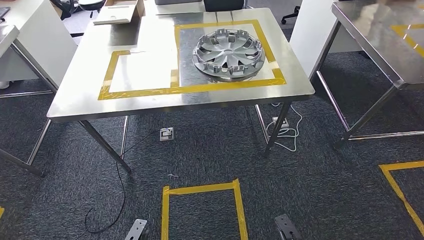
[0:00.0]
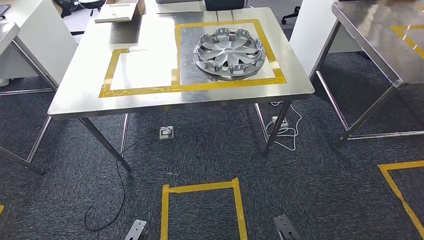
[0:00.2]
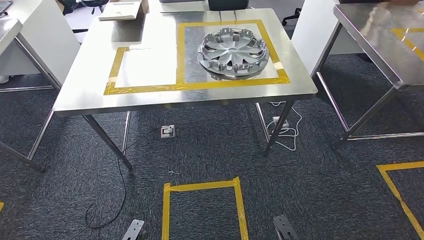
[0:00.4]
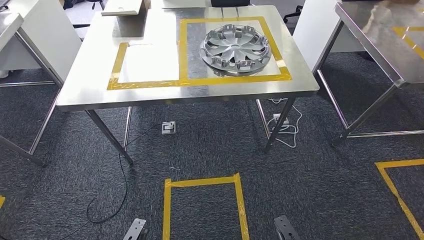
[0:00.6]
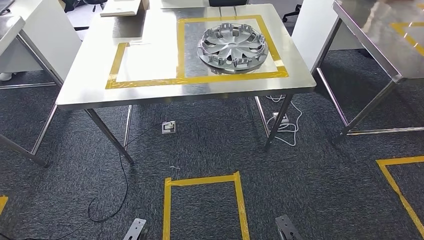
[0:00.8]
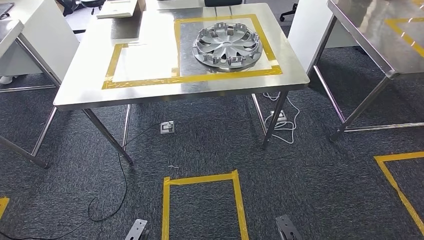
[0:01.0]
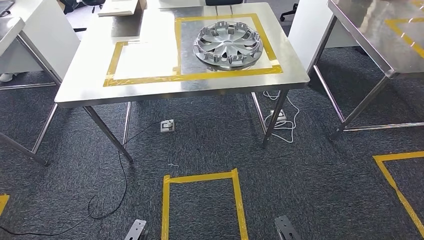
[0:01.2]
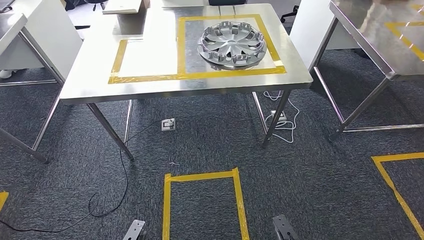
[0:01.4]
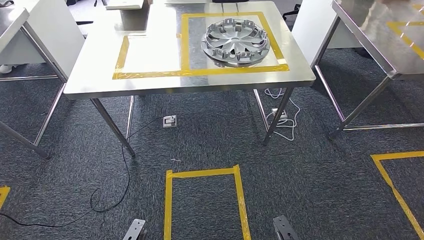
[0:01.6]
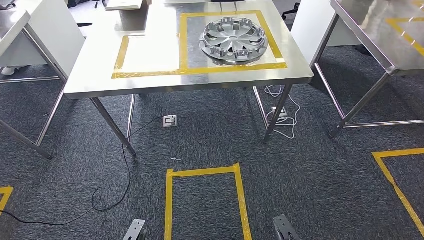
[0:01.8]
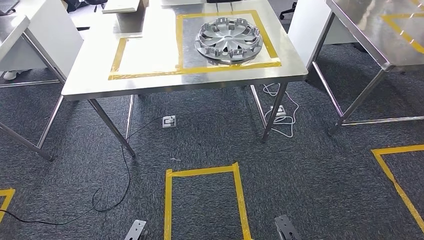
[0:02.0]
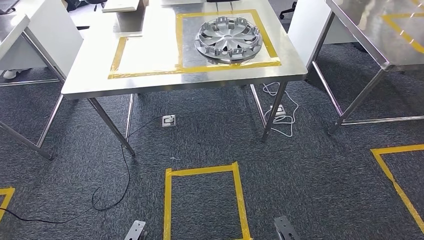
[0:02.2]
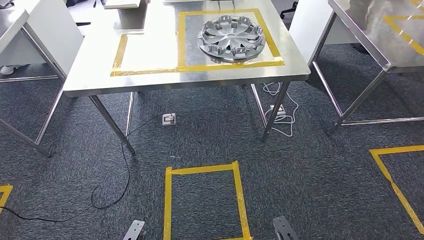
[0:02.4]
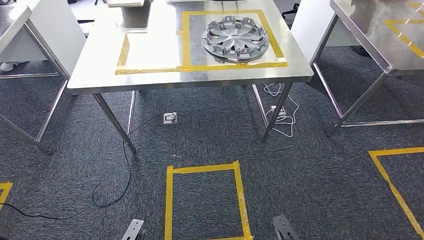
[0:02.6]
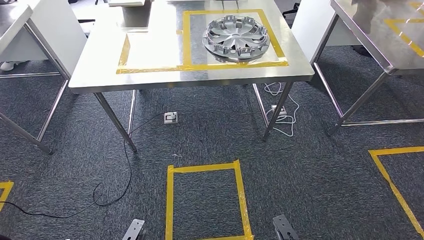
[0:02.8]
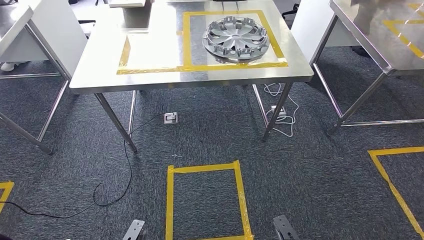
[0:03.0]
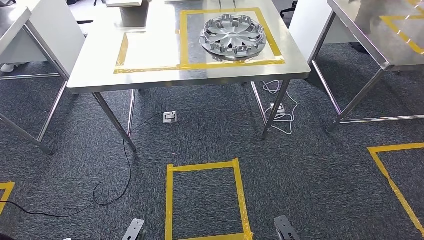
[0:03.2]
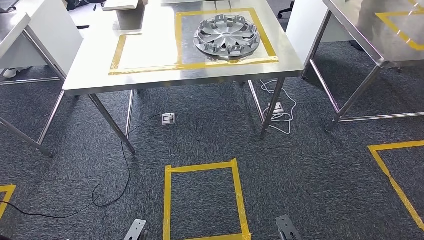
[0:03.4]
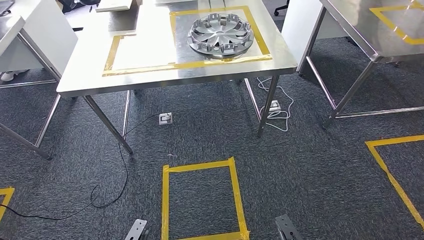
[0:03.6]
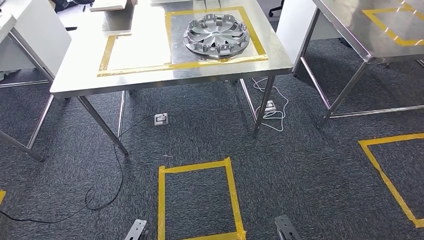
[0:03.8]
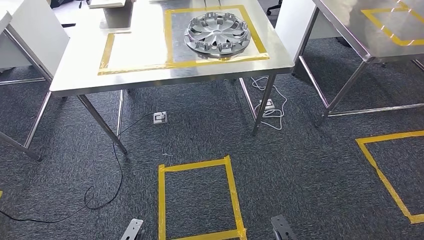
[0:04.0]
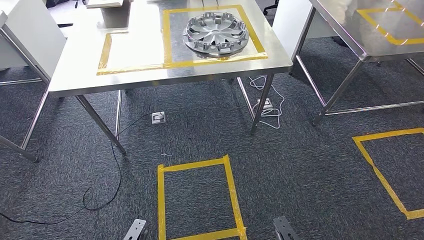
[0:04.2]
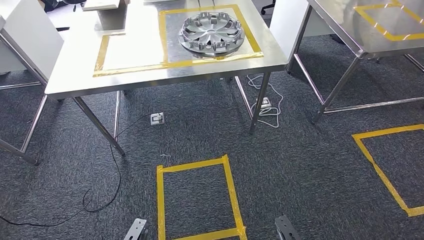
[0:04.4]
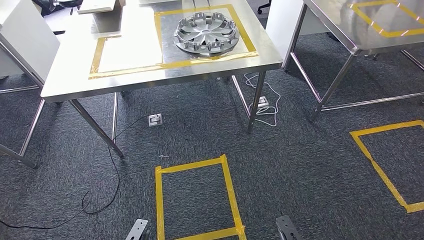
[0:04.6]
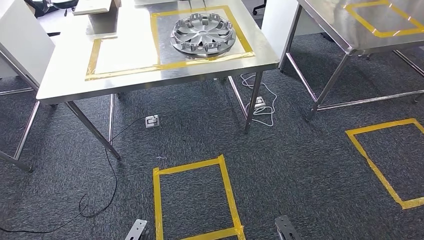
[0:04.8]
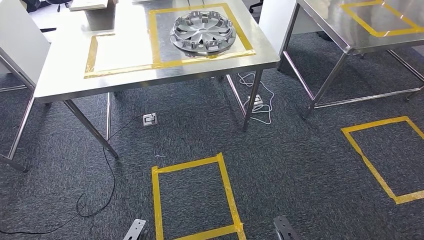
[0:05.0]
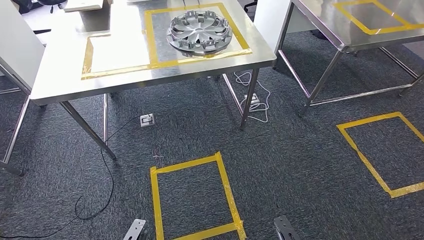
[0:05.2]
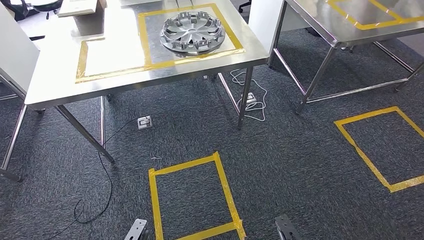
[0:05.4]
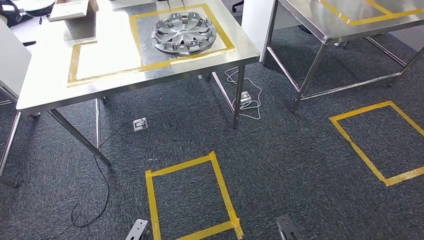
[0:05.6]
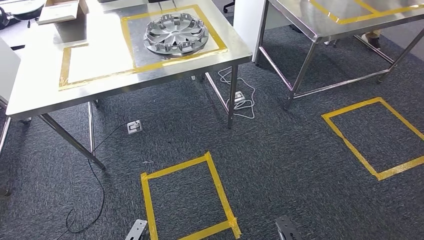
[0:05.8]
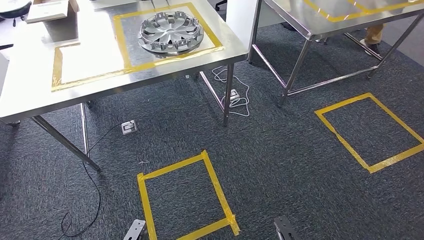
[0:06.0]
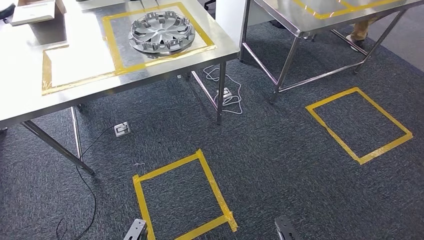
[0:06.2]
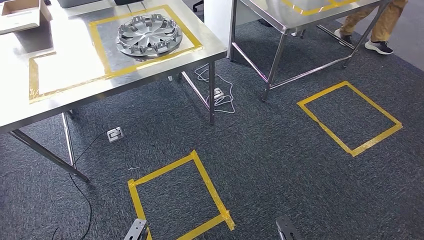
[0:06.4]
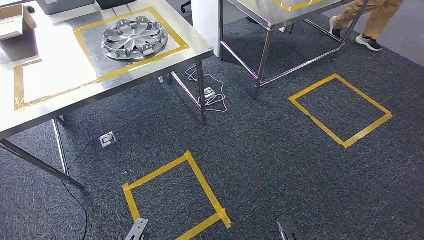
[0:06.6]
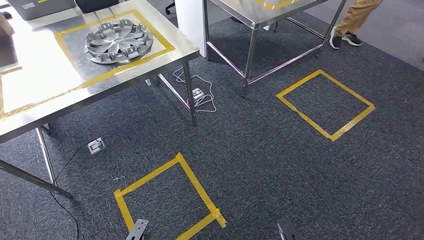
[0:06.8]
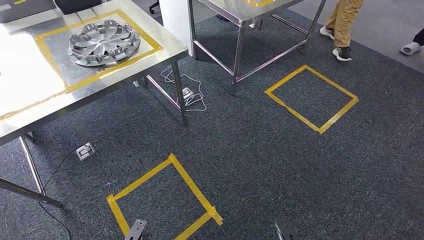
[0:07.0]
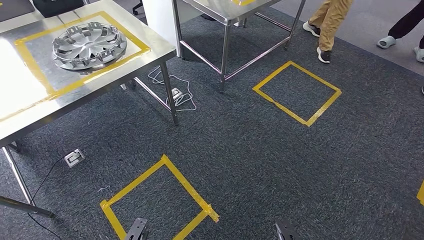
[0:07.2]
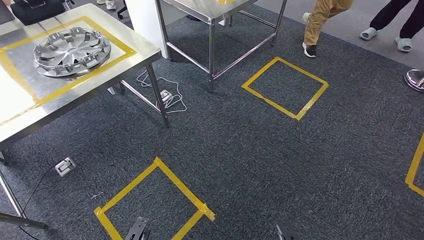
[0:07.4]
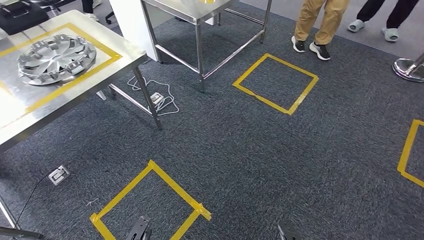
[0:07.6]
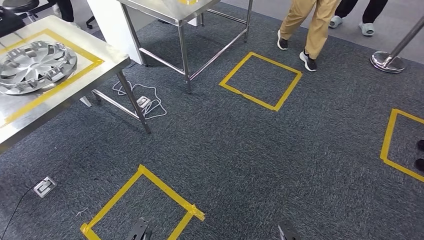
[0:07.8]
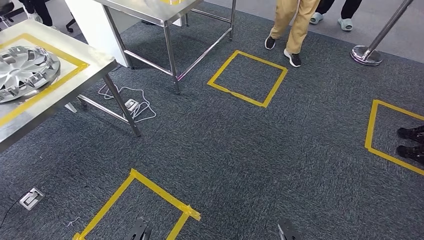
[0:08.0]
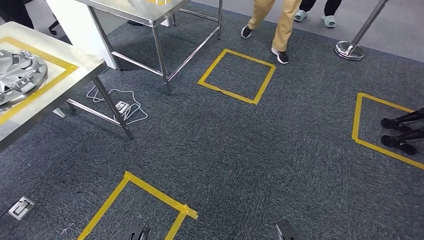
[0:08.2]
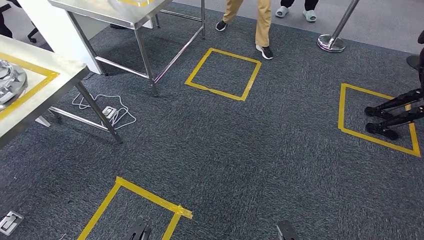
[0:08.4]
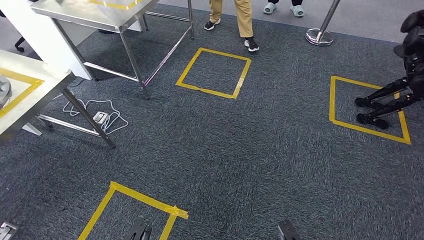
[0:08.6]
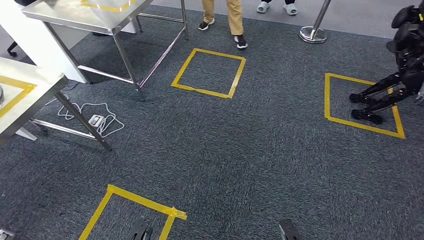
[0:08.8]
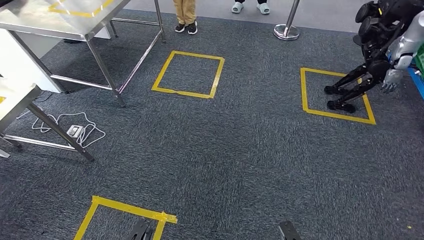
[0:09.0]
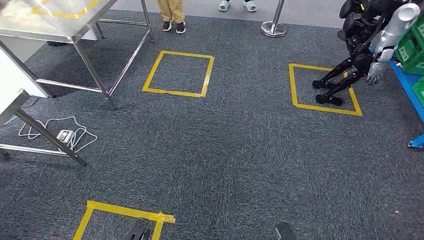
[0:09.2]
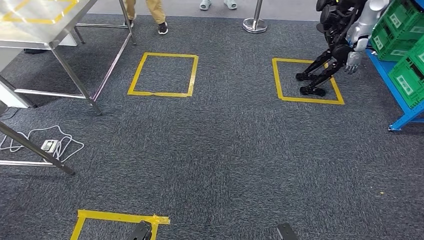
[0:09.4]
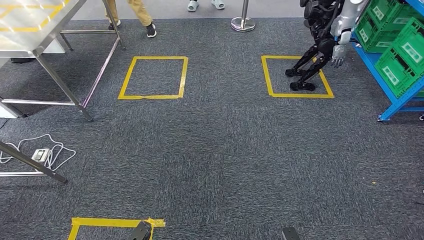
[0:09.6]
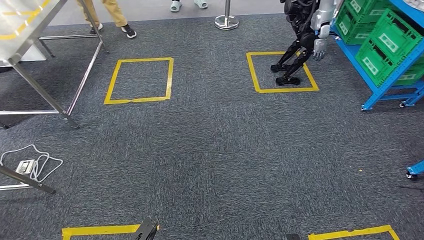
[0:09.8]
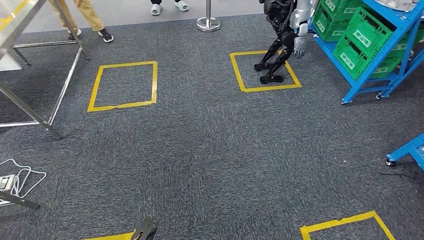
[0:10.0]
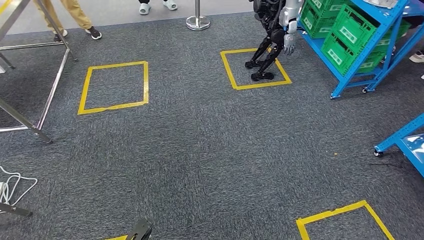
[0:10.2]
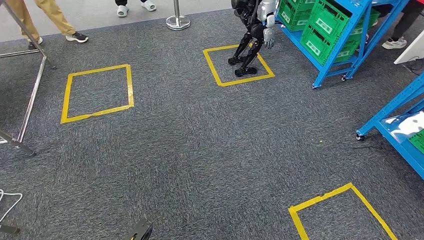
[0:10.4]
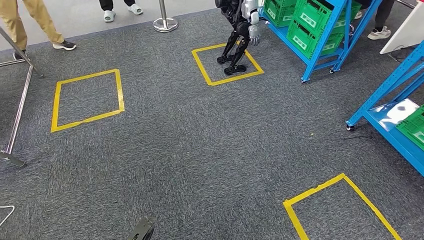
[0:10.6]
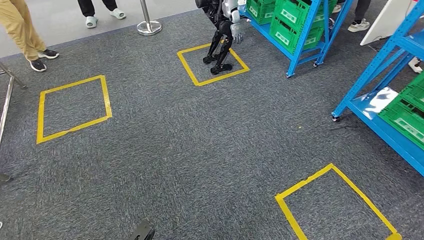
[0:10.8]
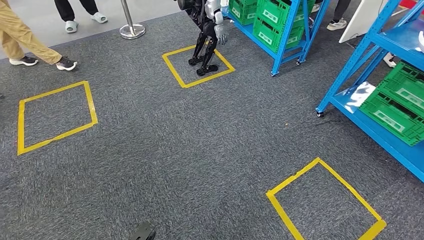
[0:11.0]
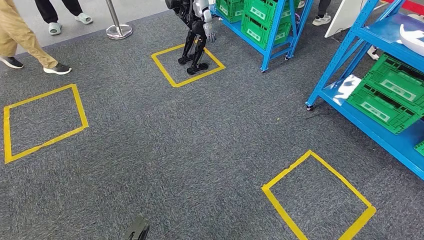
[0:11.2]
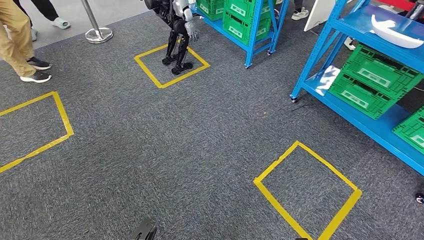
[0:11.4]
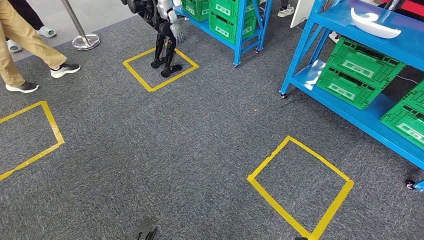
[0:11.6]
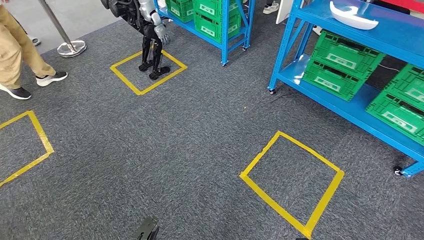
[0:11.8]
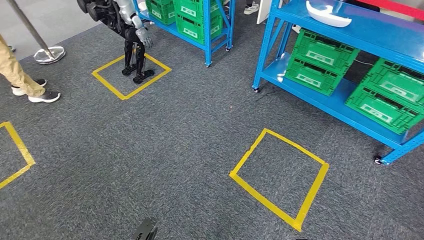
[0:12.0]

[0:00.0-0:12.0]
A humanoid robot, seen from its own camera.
0:01.6 to 0:03.0: Both hands stay put.

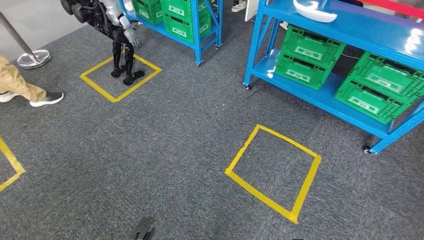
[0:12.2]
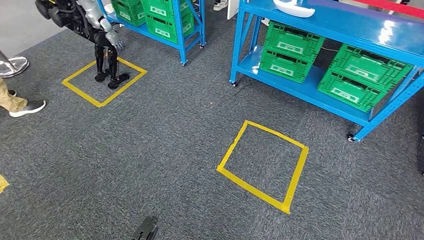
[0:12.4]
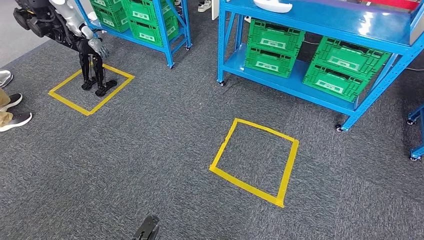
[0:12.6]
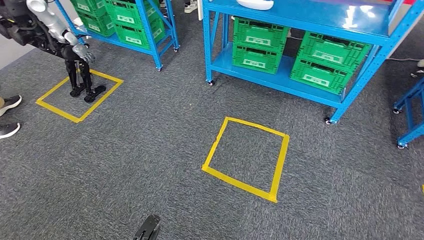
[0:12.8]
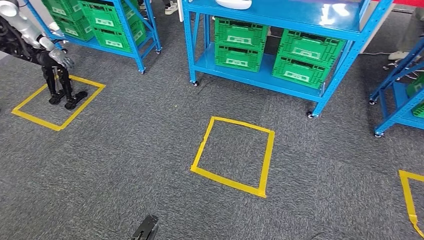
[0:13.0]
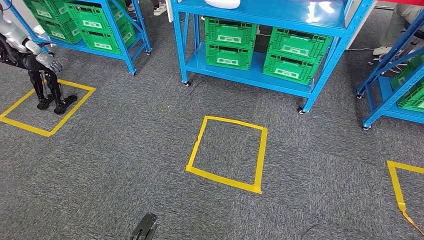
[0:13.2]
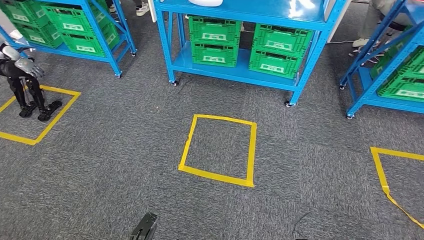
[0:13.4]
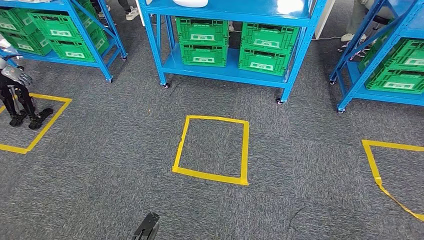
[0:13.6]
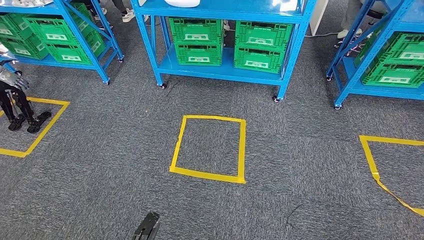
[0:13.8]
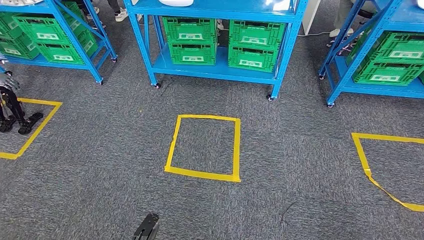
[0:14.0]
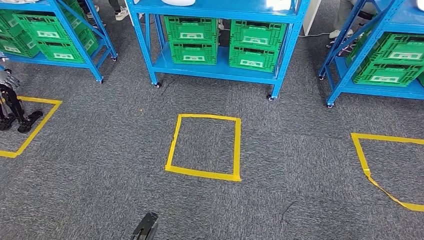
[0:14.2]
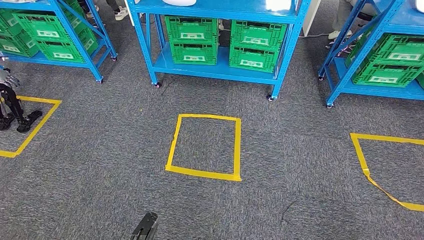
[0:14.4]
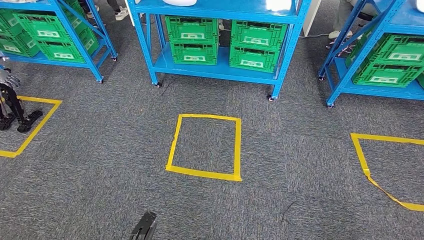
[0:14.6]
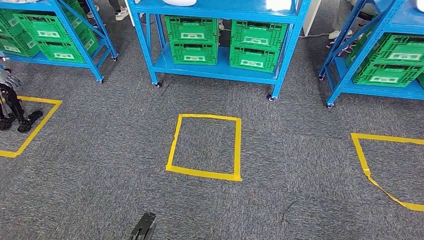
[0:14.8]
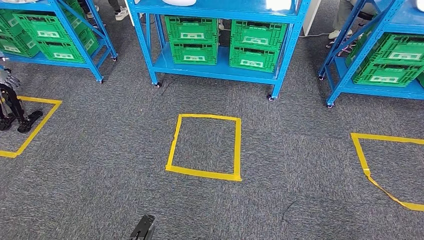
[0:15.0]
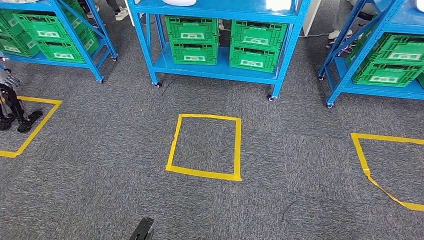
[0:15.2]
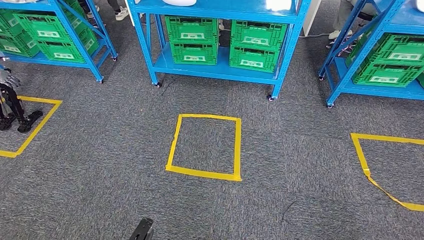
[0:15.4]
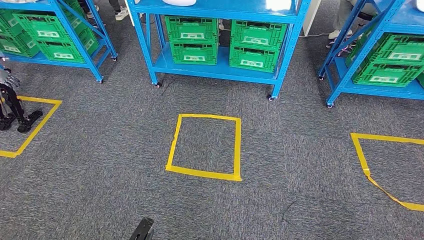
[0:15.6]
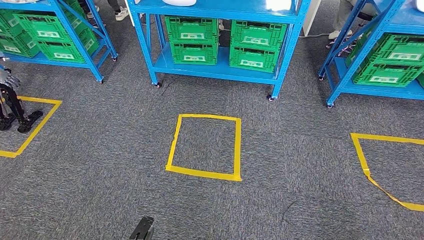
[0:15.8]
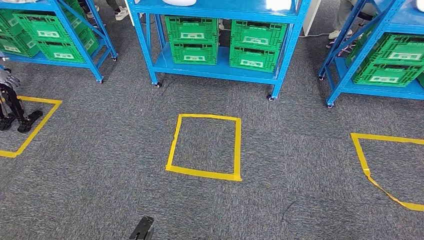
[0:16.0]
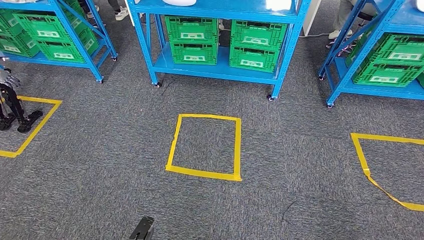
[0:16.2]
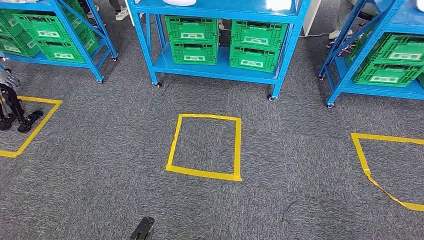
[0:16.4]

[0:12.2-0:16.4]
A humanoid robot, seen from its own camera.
Step, 0:12.2 to 0:16.2: Return to the initial position at the workbench.

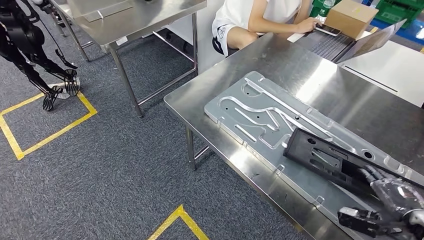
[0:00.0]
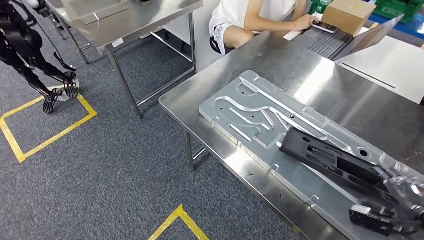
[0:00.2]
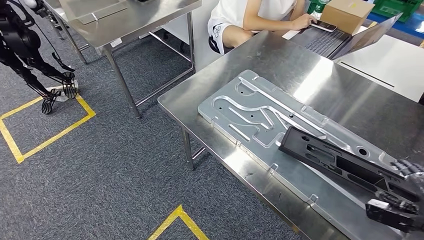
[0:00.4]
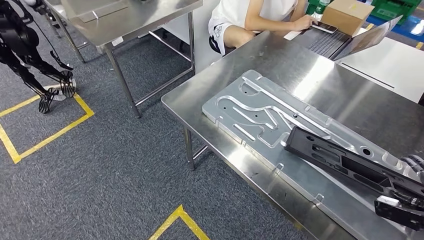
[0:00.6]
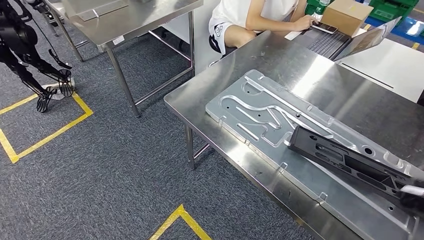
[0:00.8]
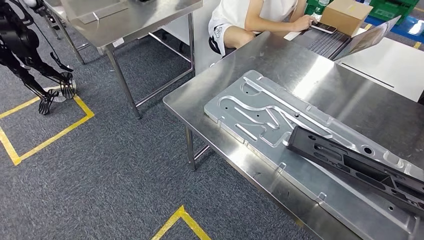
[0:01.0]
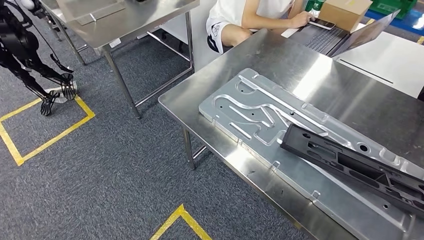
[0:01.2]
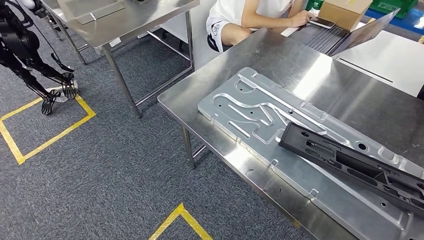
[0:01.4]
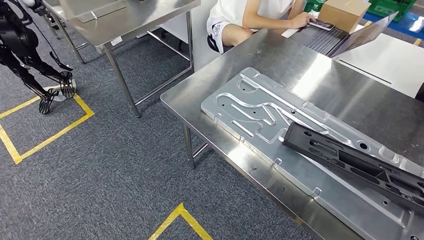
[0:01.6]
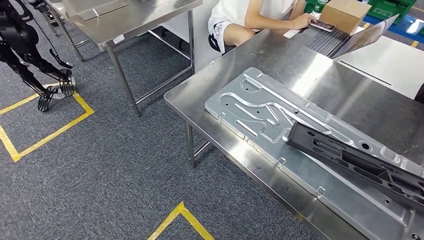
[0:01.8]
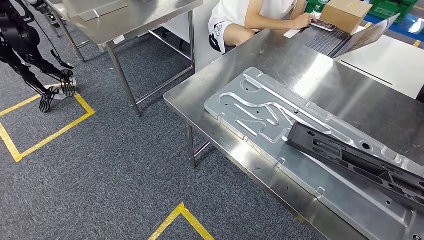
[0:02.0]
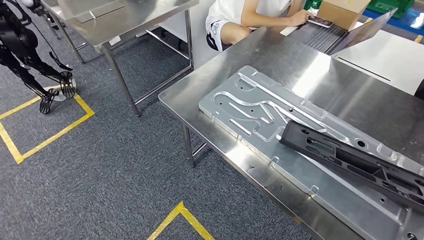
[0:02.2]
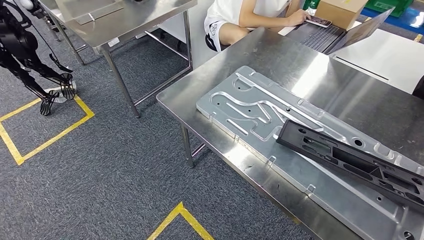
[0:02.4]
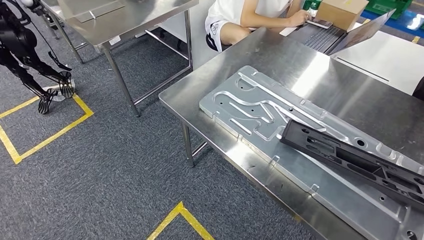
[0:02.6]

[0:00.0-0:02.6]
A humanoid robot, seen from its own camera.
Step, 0:00.0 to 0:02.6: Insert the large parts into the corresponding slots on the workbench.
